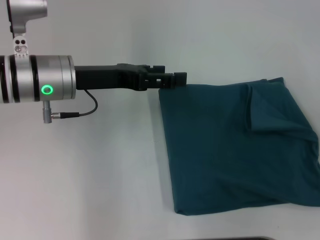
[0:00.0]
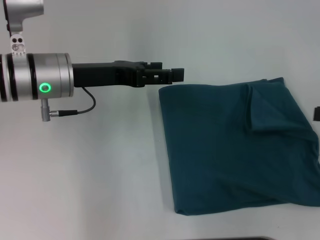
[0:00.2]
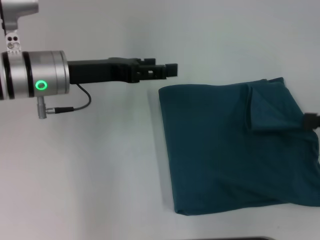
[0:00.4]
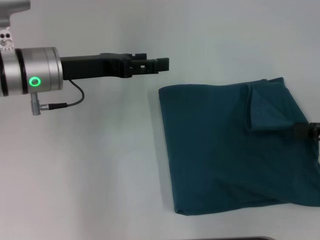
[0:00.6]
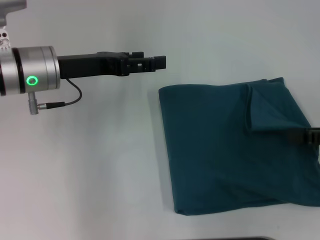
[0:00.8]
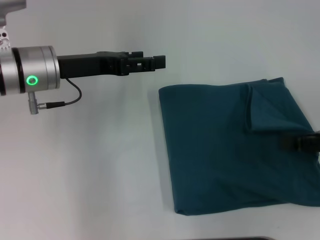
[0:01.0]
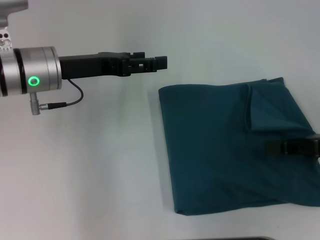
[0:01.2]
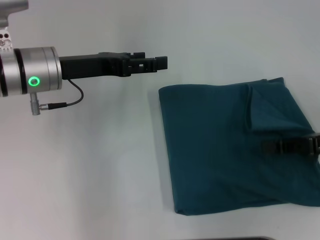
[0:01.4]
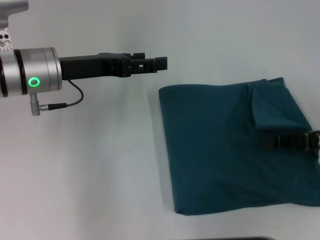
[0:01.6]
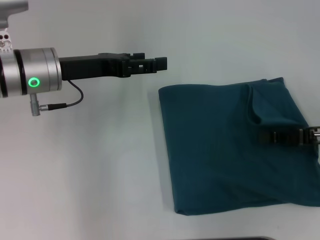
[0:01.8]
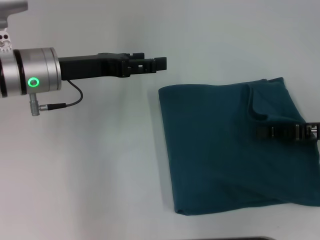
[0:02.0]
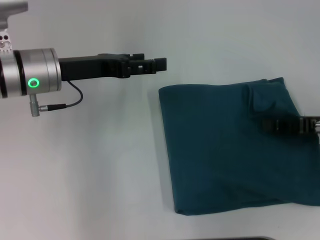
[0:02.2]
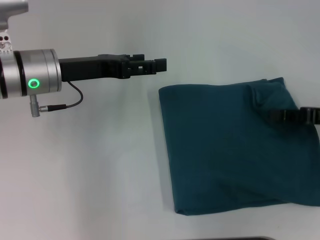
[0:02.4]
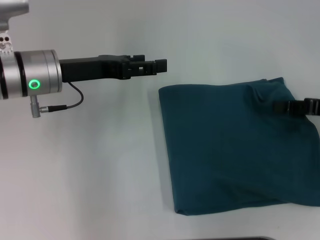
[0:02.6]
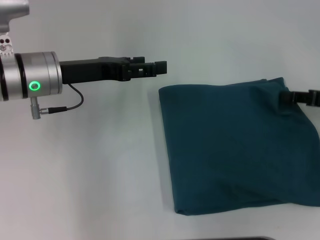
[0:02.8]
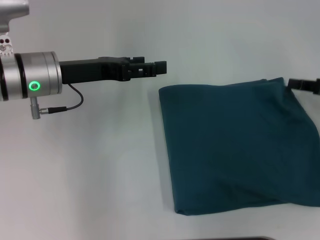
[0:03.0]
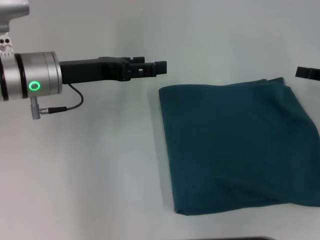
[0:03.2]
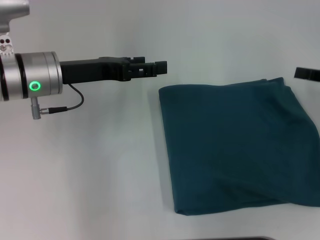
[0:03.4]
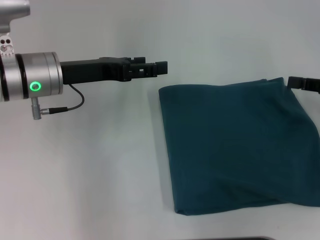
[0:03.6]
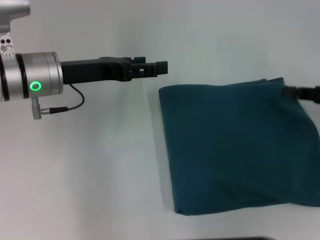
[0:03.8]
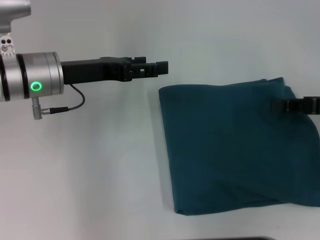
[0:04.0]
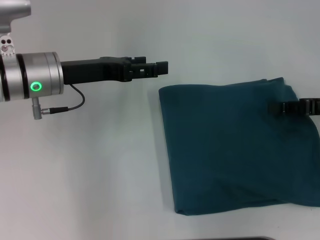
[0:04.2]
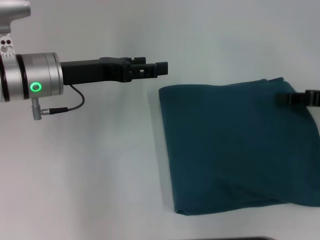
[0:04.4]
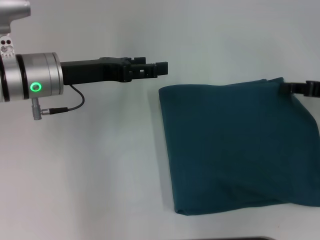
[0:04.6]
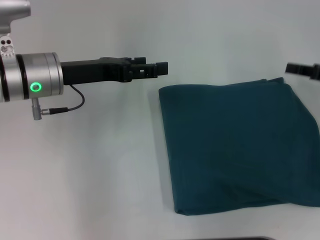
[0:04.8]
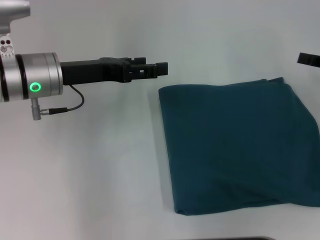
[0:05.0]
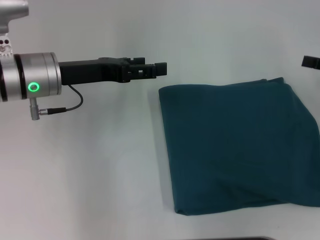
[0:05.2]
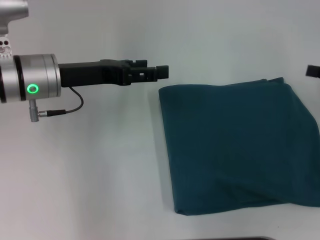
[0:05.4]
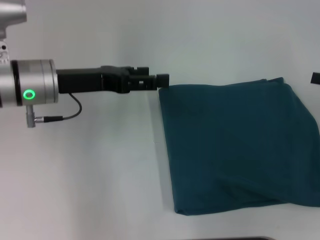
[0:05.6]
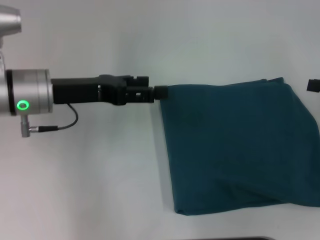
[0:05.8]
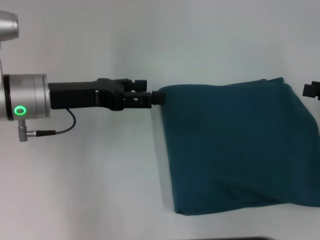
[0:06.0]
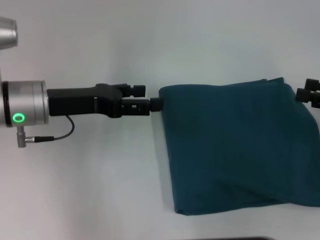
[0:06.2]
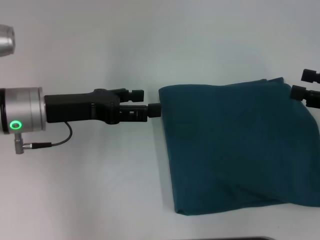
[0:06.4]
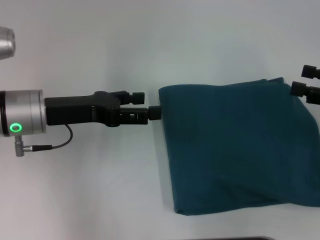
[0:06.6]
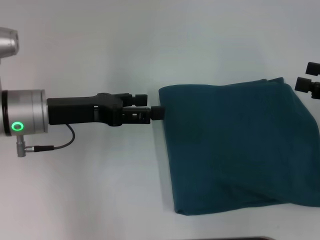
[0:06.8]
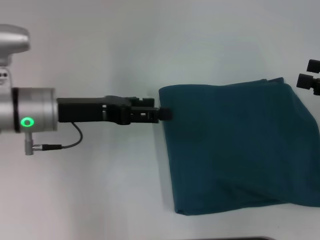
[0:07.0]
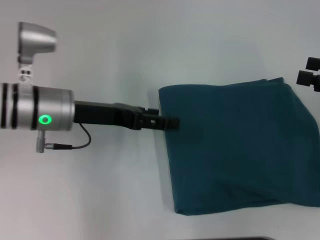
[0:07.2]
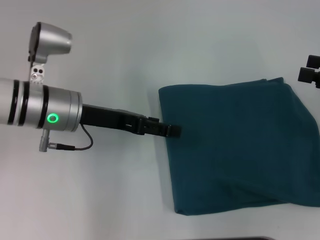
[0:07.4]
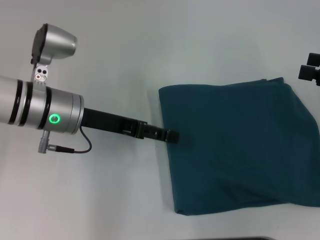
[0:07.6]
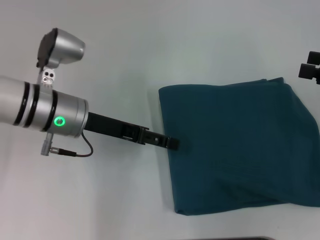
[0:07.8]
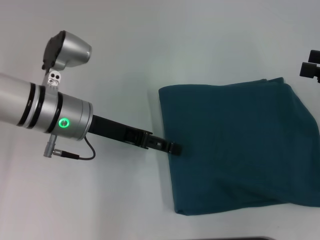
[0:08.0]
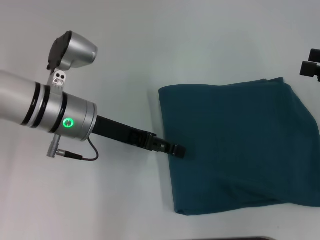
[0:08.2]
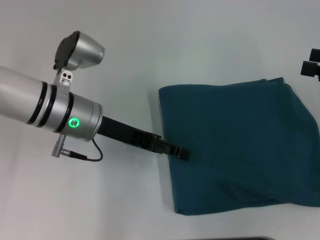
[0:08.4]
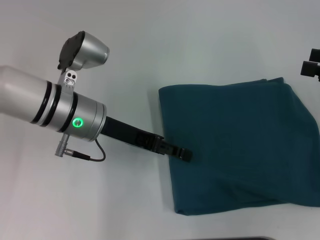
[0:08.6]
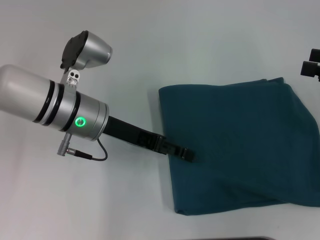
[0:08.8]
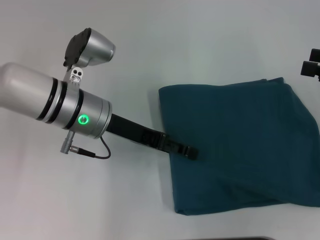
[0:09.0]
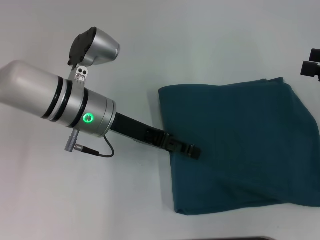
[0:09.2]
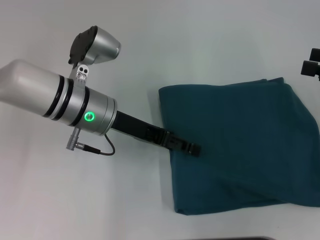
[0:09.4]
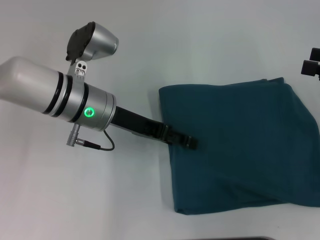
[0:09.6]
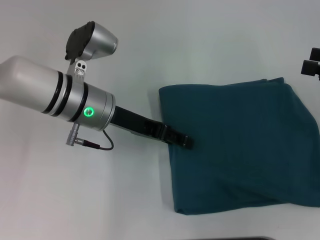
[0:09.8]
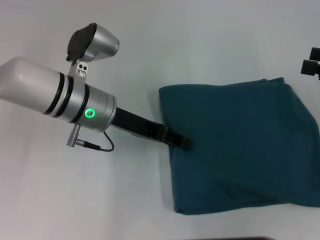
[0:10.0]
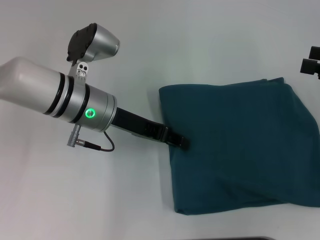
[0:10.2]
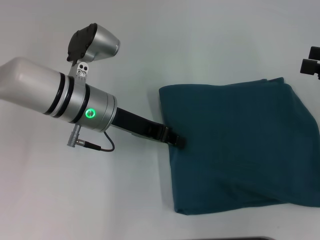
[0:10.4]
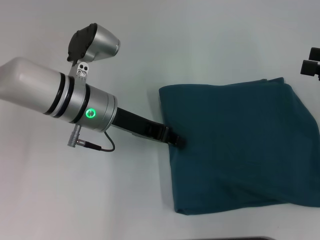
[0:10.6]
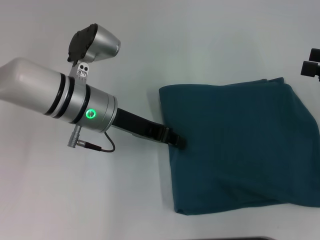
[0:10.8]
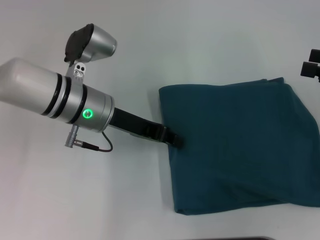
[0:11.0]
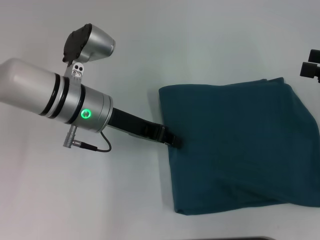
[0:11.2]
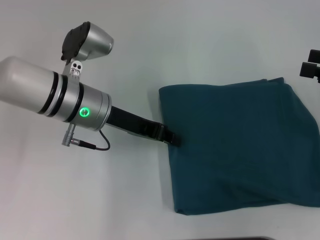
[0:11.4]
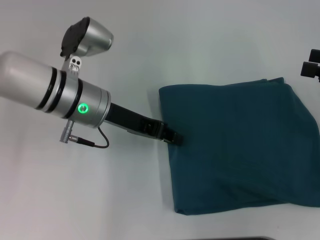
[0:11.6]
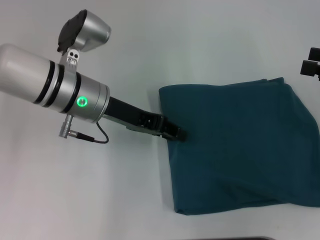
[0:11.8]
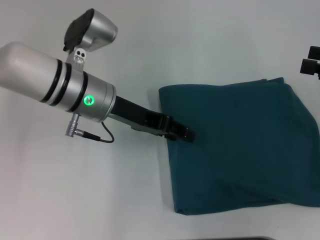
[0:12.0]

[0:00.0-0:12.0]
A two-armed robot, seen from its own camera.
0:00.0 to 0:01.6: The right gripper heads to the left, covering some 10 cm, and closes.
0:03.0 to 0:04.4: The grippers move only a little.
0:04.4 to 0:06.0: The right gripper shifts by about 5 cm, and opens its fingers.
0:06.0 to 0:07.6: The right gripper opens up.
0:07.6 to 0:09.0: The grippers move only a little.
0:09.0 to 0:10.4: The left gripper closes.
0:10.4 to 0:12.0: The grippers stay close to where they were, moving slightly.

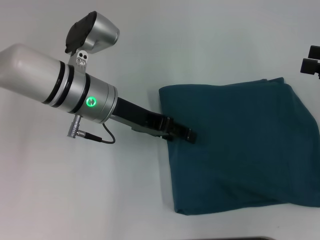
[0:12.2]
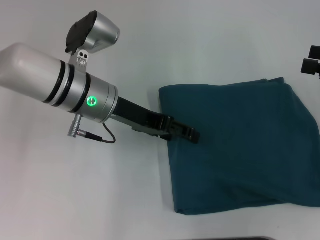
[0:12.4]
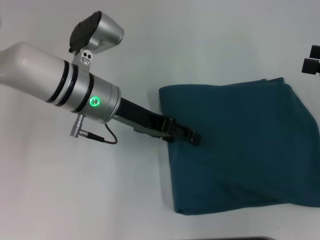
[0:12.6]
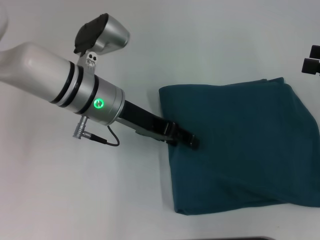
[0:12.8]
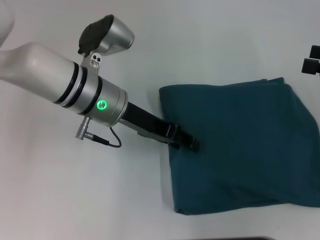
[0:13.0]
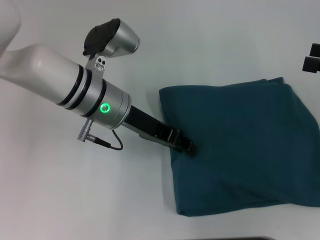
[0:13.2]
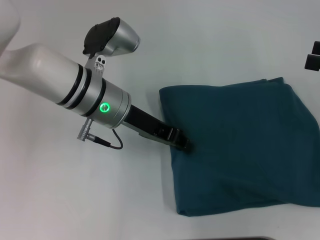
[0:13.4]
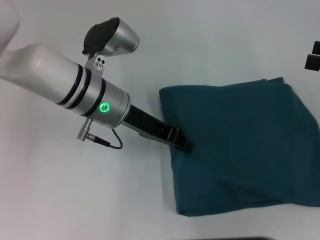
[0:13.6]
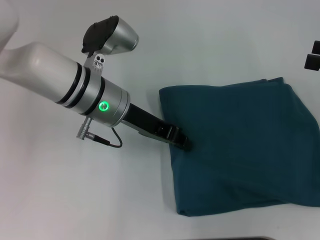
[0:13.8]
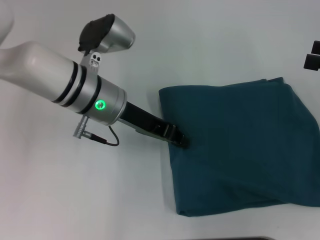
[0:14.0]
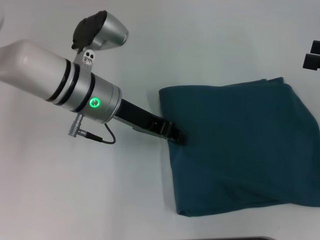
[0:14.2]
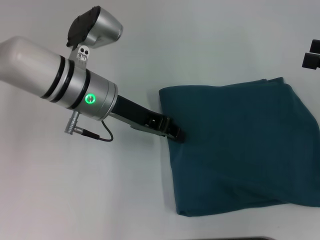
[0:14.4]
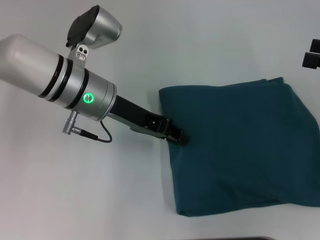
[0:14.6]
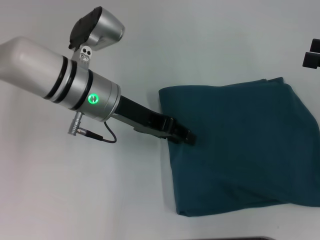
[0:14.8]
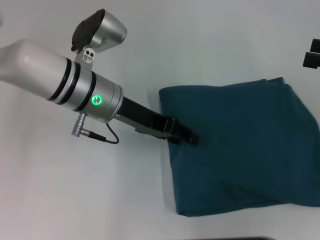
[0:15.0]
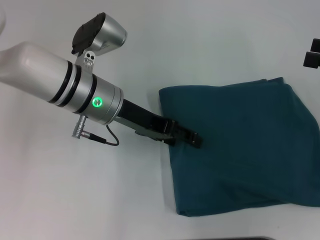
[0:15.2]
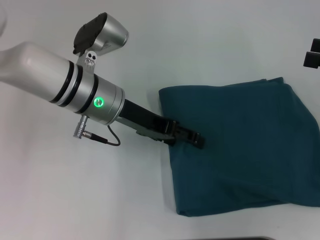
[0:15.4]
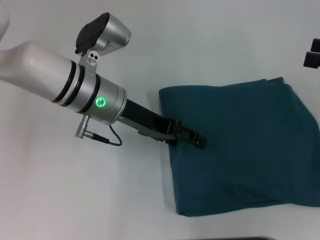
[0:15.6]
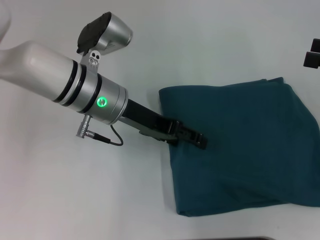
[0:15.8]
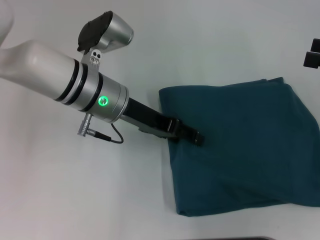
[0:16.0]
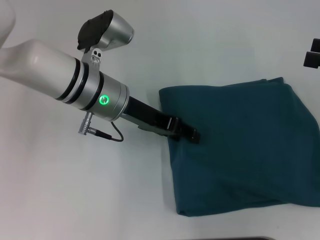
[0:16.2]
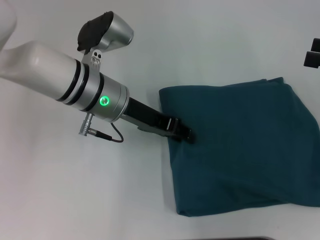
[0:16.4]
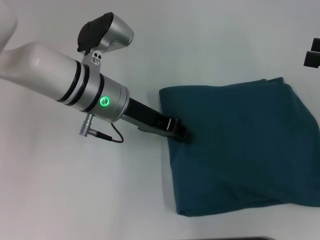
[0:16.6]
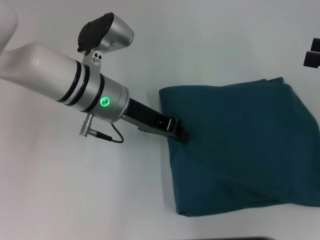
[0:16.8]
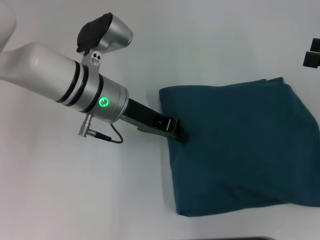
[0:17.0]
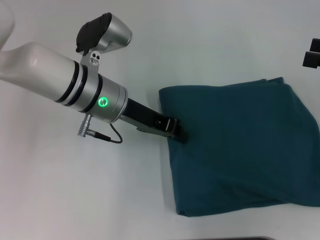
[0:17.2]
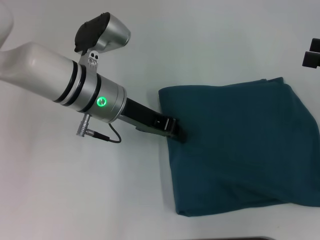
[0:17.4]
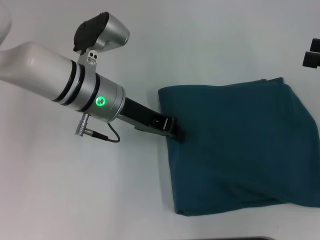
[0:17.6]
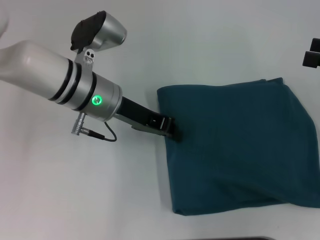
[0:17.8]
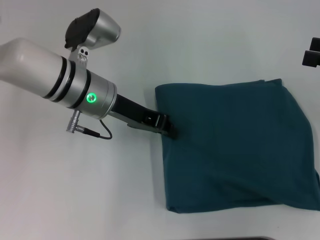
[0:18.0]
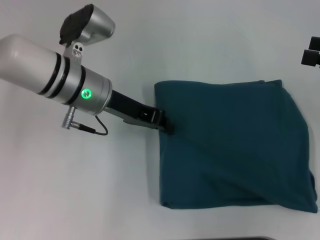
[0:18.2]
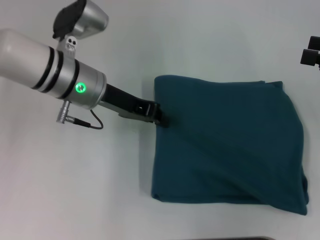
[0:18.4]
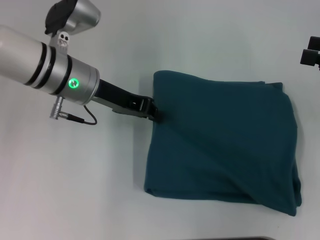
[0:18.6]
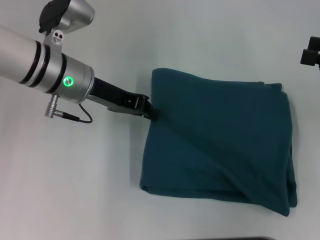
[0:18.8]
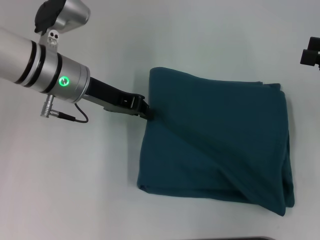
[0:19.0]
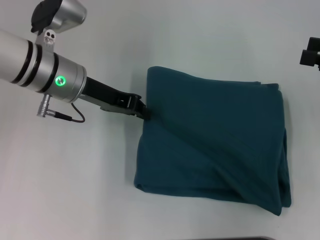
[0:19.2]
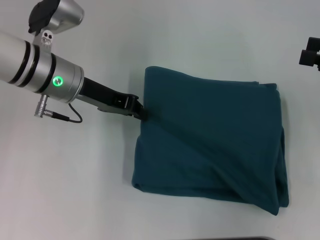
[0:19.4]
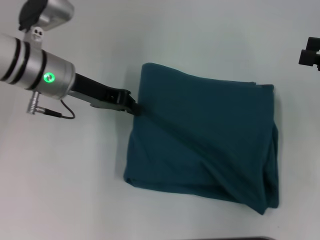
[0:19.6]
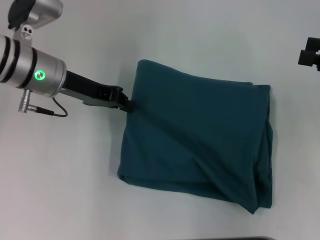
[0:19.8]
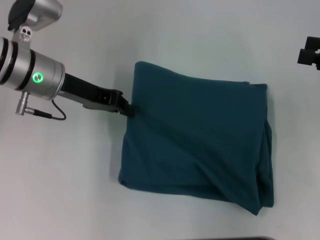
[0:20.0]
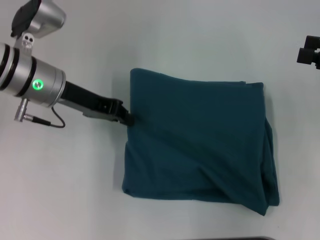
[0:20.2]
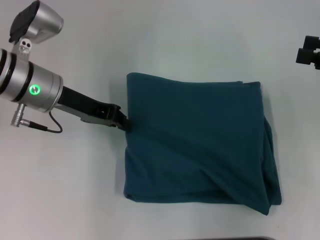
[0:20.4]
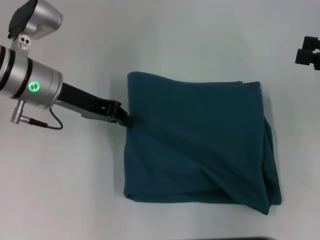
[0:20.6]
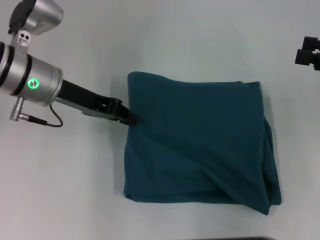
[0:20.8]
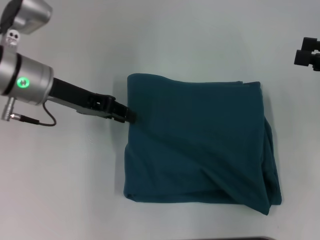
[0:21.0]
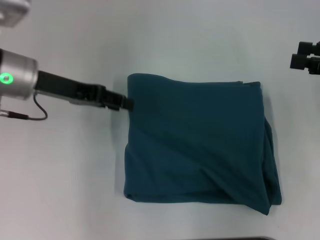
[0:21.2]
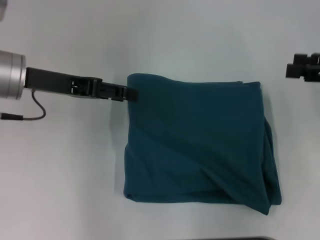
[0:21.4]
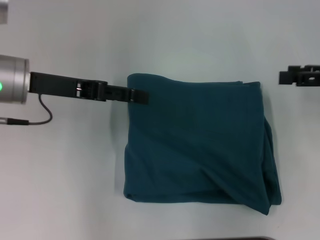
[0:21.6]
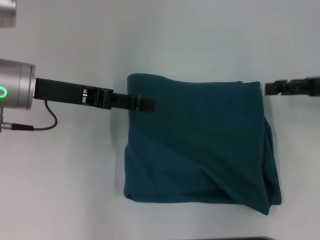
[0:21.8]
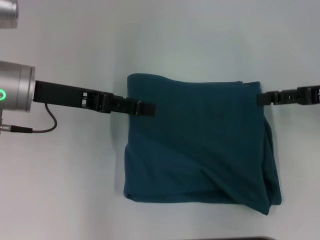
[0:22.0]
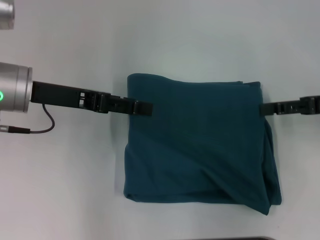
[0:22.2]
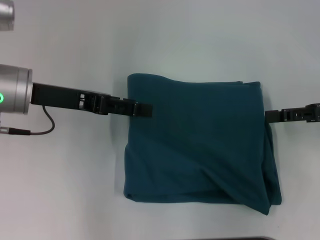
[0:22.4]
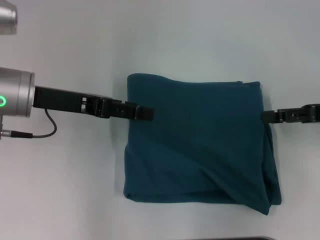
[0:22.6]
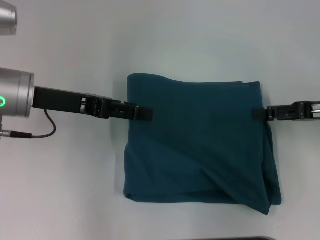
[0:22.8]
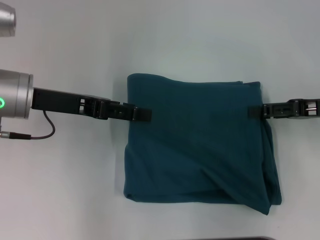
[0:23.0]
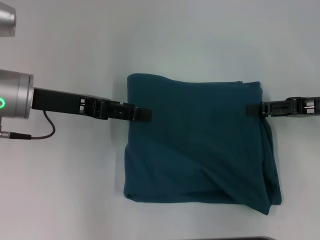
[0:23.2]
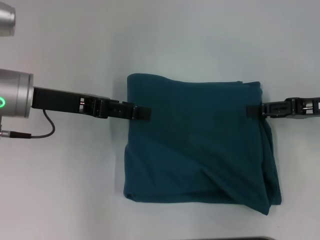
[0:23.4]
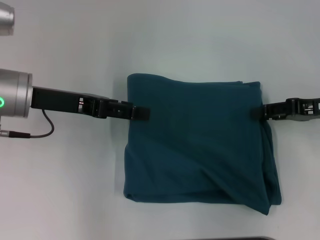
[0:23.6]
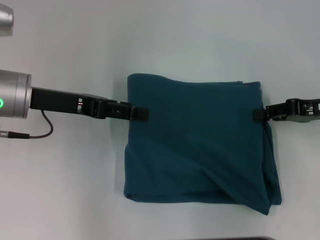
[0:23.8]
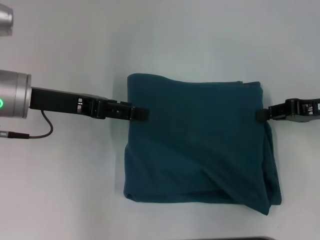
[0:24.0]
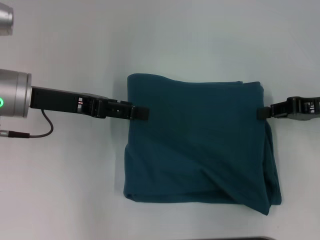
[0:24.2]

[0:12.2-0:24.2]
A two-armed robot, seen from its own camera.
0:12.2 to 0:13.8: The left gripper closes its fingers.
0:13.8 to 0:15.2: The left gripper opens up.
0:15.2 to 0:16.6: The two grippers keep their place.
0:16.6 to 0:18.2: The left gripper closes its fingers.
0:18.2 to 0:19.8: The left gripper shifts some 5 cm to the left.
0:19.8 to 0:21.2: There are only small adjustments of the grippers.
0:21.2 to 0:22.6: The left gripper opens its fingers. Meanwhile the right gripper moves downward, roughly 5 cm.
0:22.6 to 0:24.2: The right gripper closes up.
